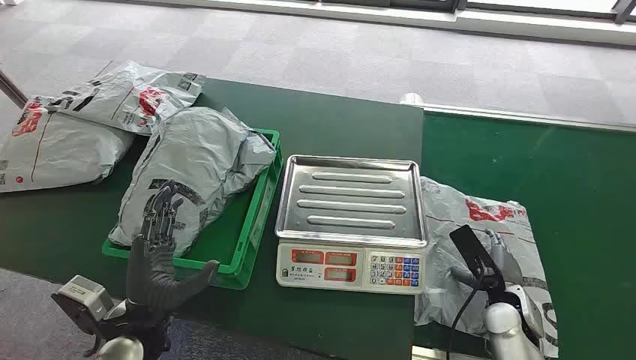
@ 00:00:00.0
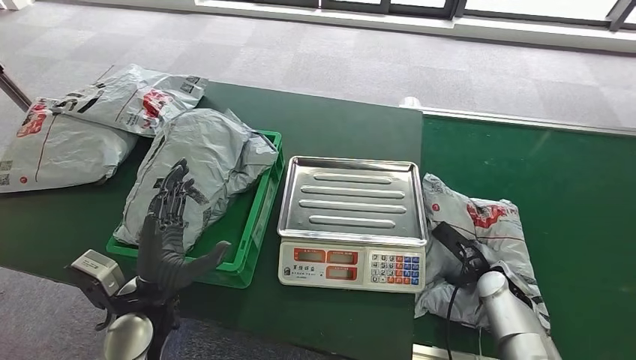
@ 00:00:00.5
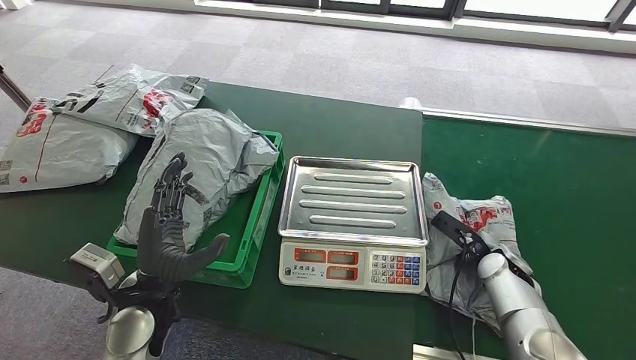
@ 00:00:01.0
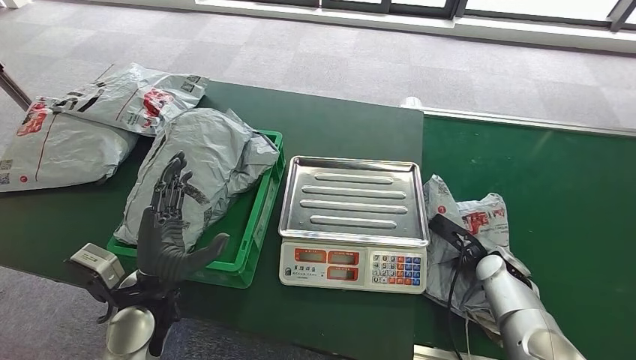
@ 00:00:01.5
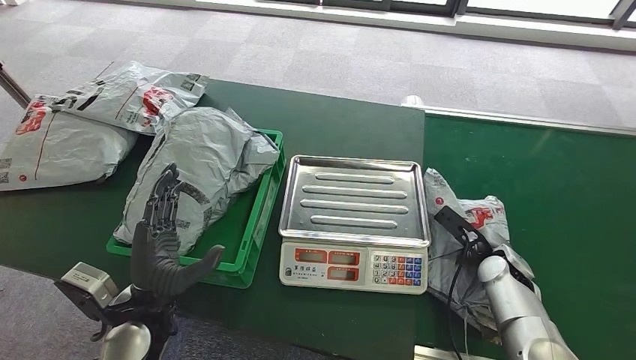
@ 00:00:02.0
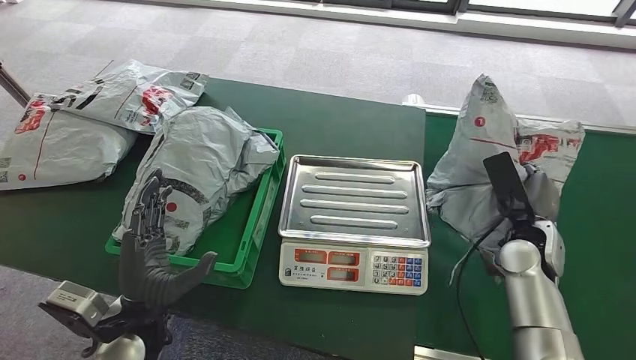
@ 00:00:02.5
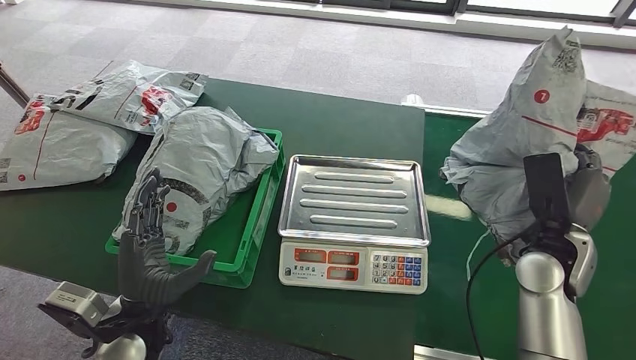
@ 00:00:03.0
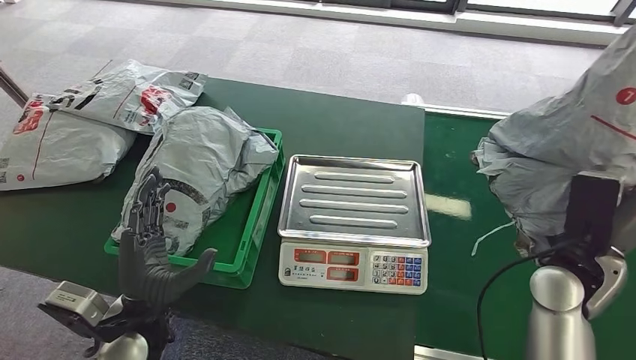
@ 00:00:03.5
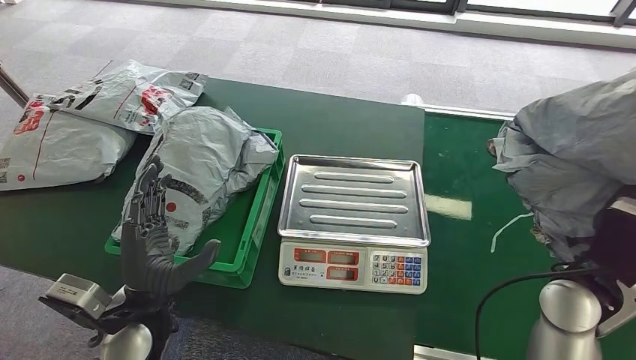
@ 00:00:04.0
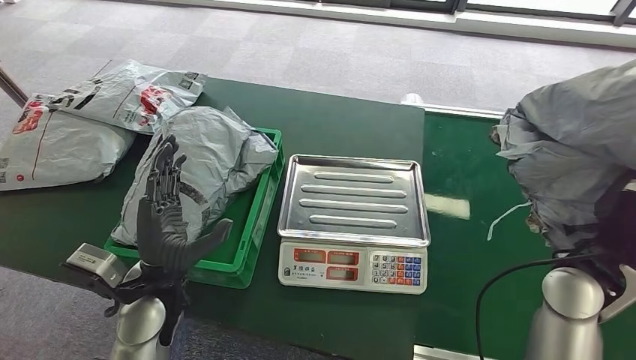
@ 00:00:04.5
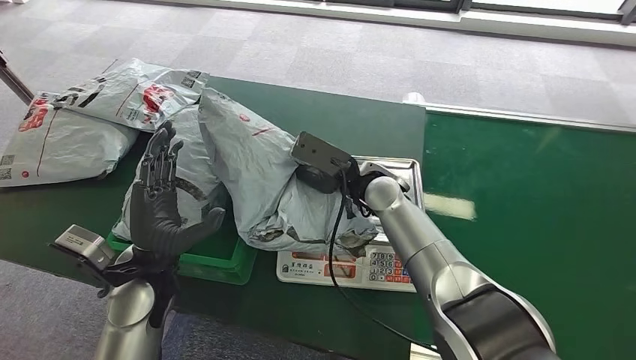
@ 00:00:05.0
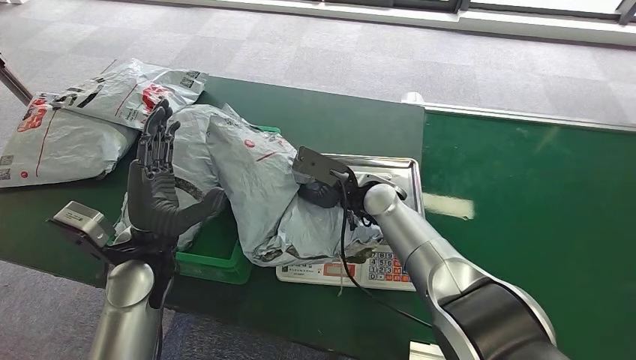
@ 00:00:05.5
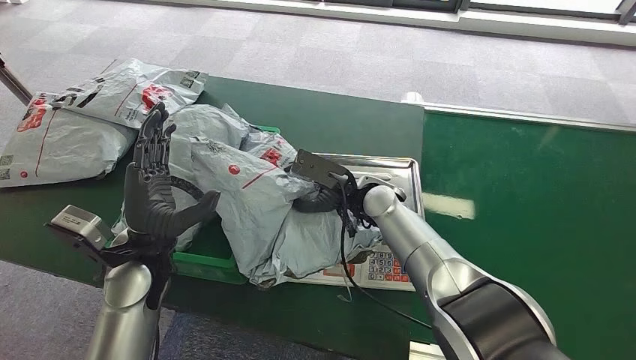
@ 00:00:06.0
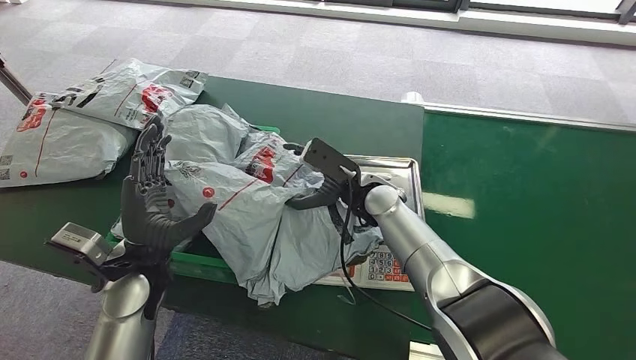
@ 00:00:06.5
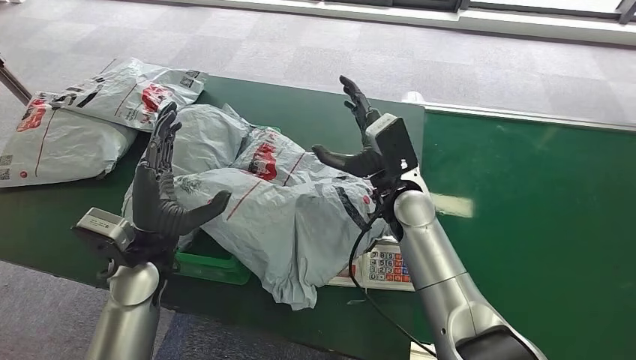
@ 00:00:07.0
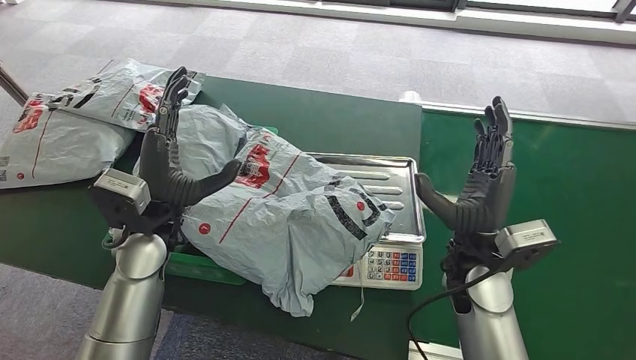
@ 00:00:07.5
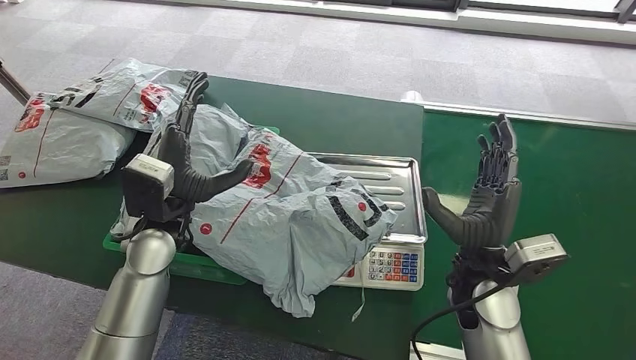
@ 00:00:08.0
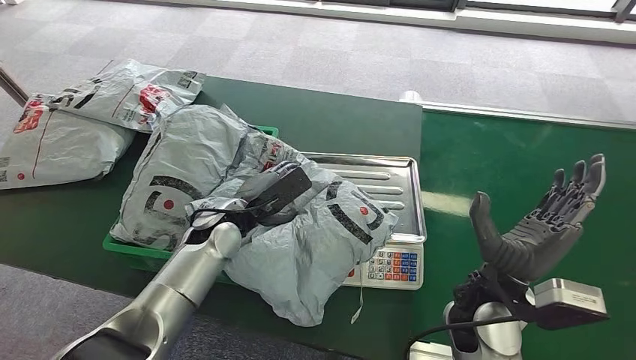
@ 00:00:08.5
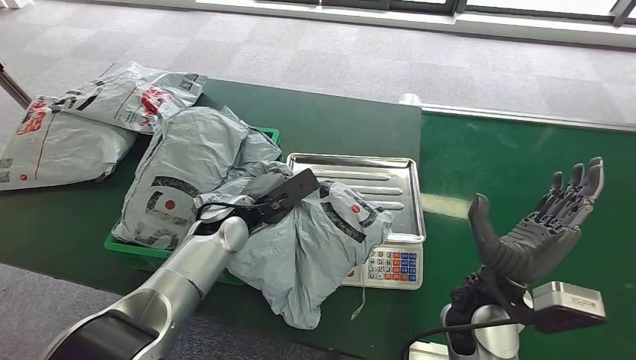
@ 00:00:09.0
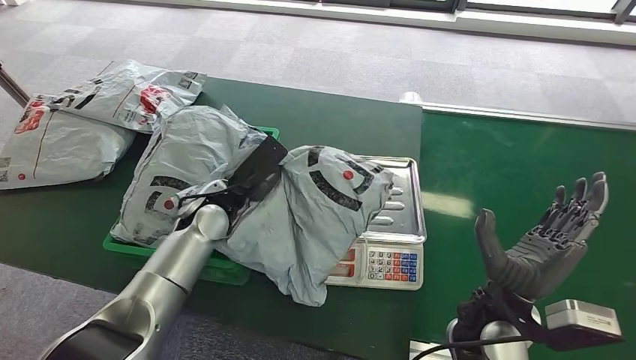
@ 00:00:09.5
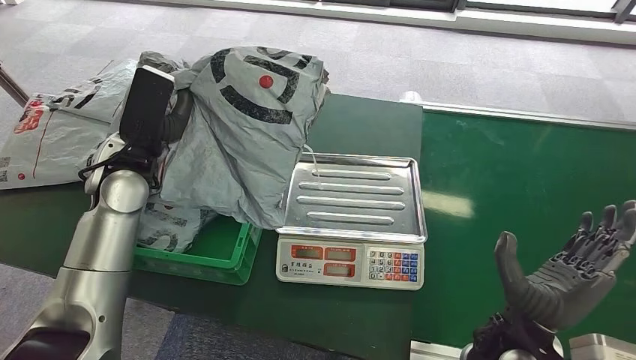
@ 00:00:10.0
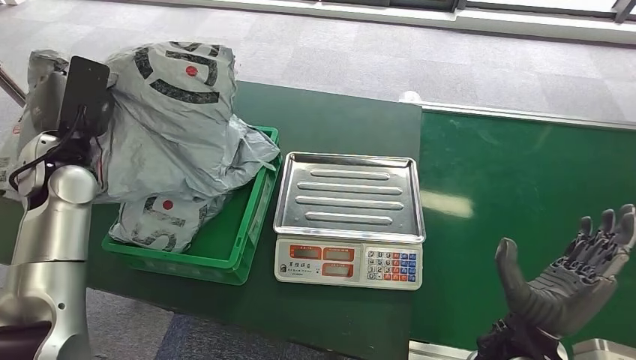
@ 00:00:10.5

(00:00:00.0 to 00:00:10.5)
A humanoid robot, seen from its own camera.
Step, 00:00:00.0 - 00:00:03.5: Pick up the package from the conveyor belt.
Step, 00:00:04.0 - 00:00:07.0: Place the package onto the inbound machine.
Step, 00:00:08.5 - 00:00:09.5: Pick up the package from the inbound machine.
Step, 00:00:10.0 - 00:00:10.5: Place the package into the parcel locker.
